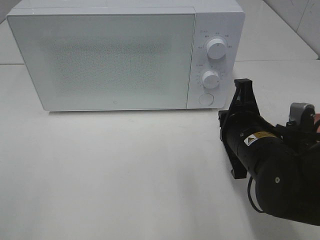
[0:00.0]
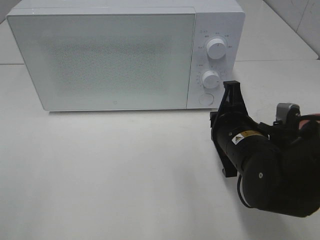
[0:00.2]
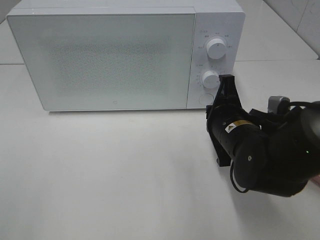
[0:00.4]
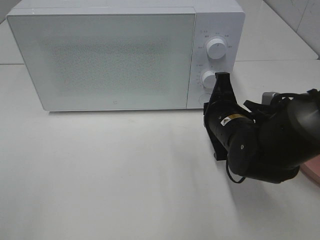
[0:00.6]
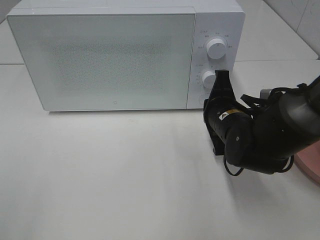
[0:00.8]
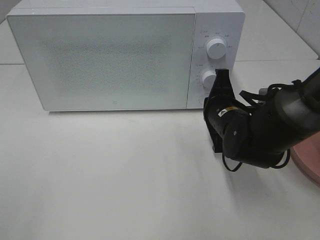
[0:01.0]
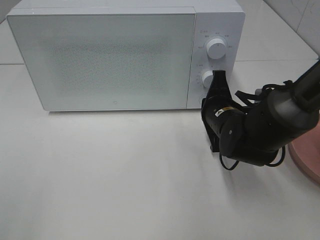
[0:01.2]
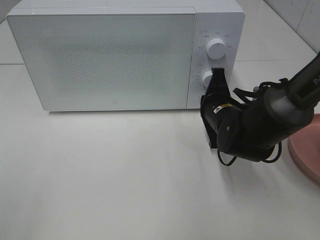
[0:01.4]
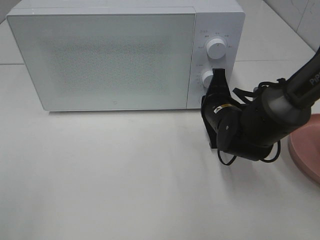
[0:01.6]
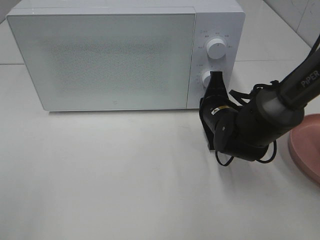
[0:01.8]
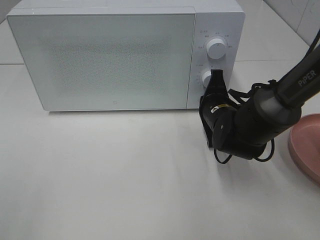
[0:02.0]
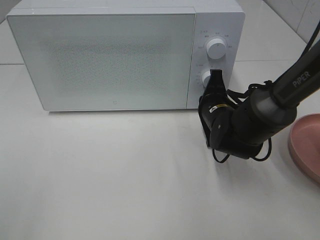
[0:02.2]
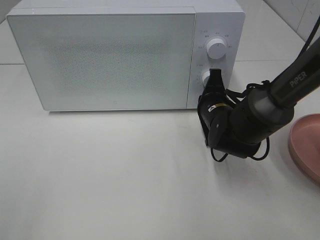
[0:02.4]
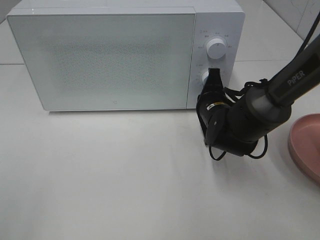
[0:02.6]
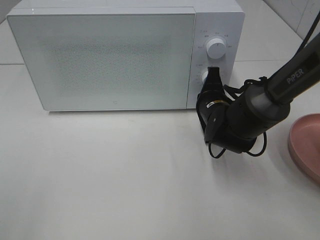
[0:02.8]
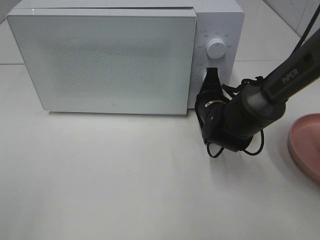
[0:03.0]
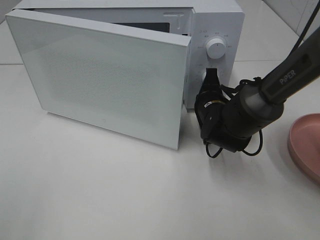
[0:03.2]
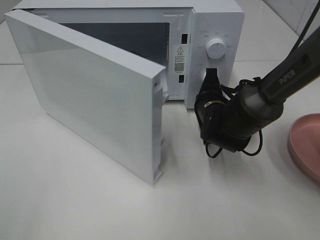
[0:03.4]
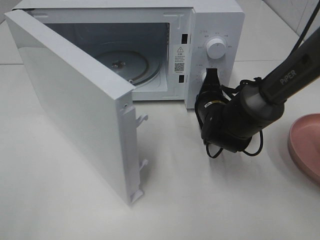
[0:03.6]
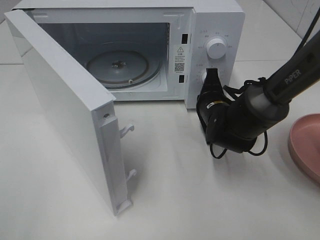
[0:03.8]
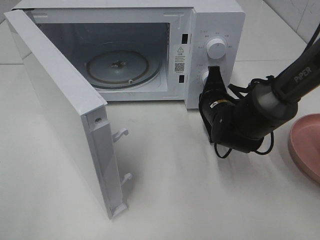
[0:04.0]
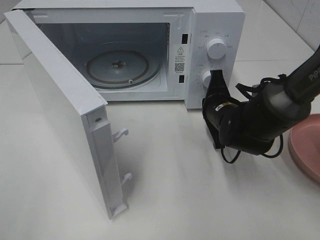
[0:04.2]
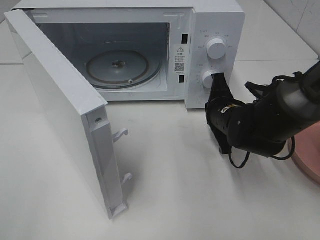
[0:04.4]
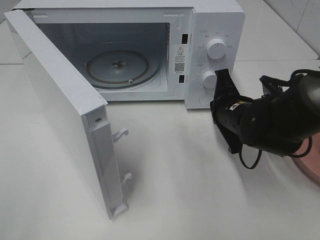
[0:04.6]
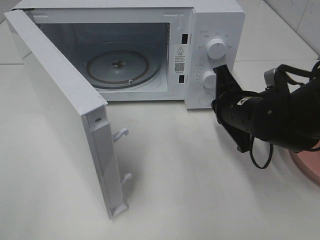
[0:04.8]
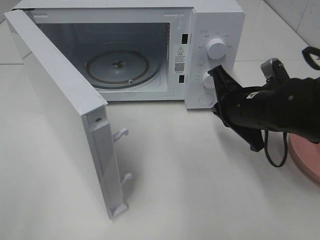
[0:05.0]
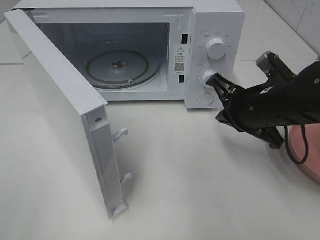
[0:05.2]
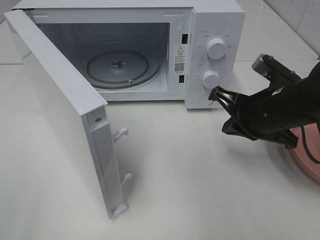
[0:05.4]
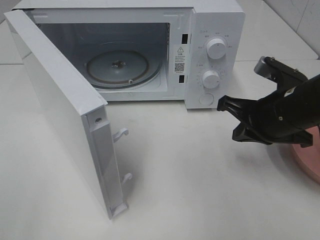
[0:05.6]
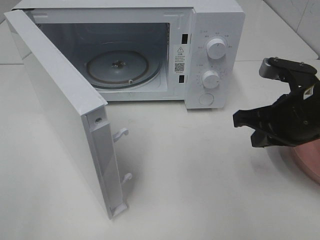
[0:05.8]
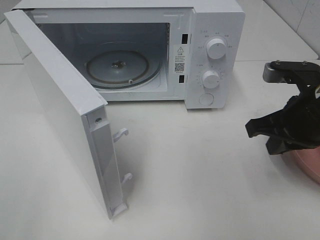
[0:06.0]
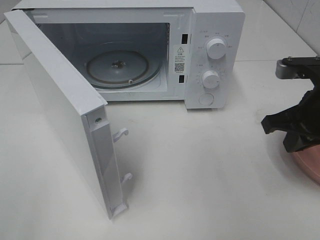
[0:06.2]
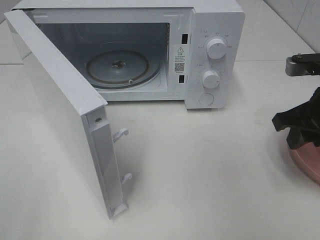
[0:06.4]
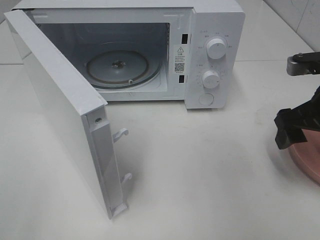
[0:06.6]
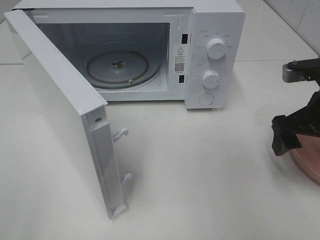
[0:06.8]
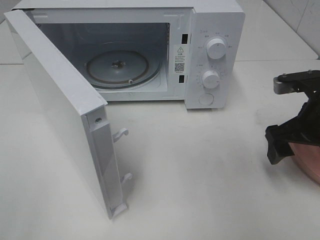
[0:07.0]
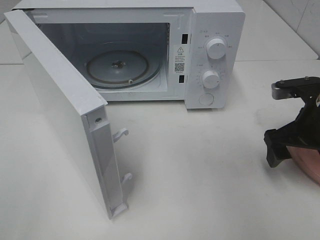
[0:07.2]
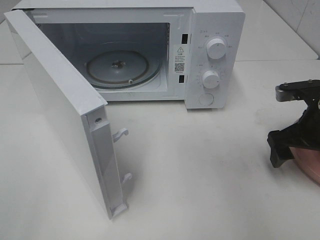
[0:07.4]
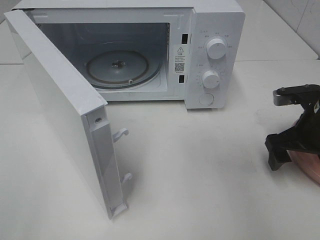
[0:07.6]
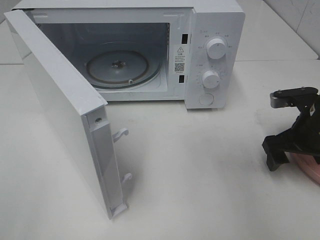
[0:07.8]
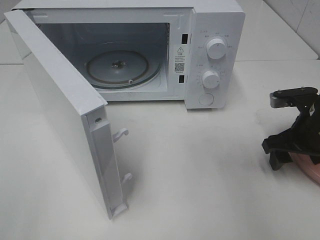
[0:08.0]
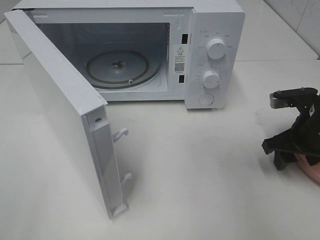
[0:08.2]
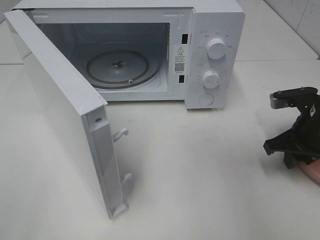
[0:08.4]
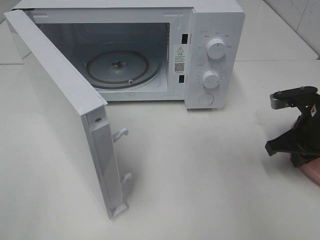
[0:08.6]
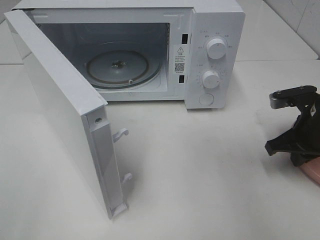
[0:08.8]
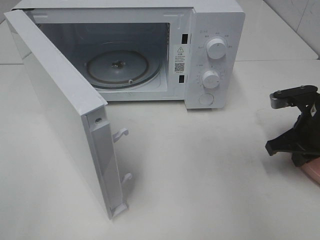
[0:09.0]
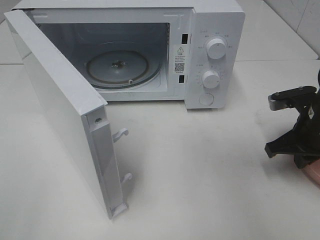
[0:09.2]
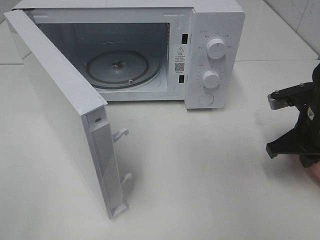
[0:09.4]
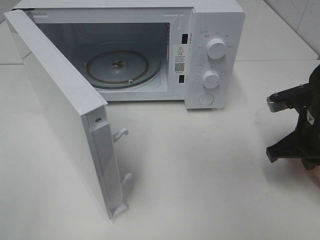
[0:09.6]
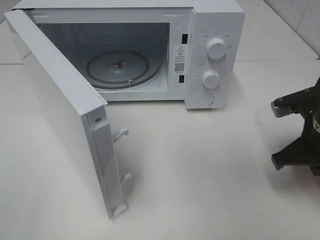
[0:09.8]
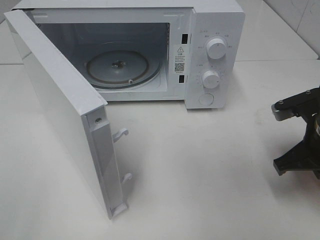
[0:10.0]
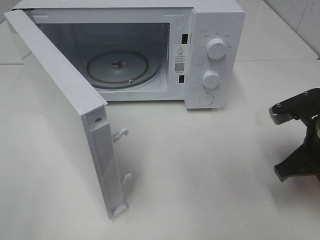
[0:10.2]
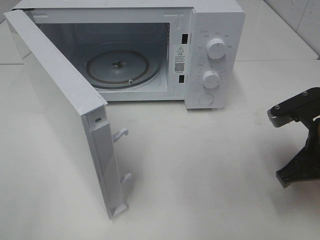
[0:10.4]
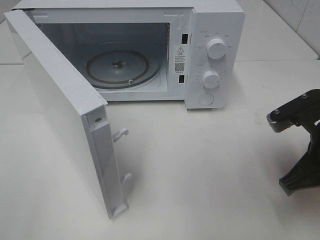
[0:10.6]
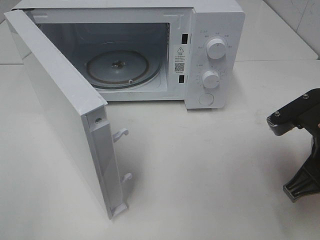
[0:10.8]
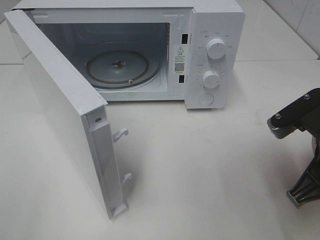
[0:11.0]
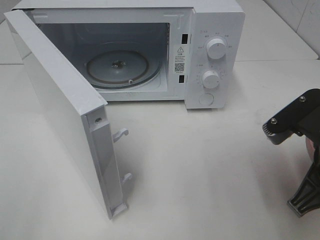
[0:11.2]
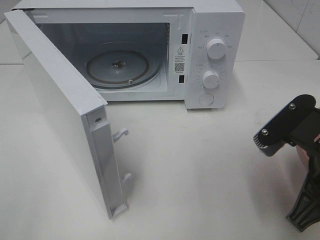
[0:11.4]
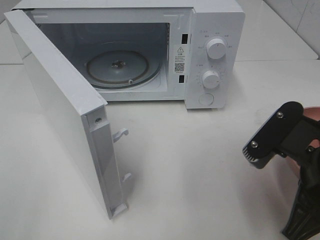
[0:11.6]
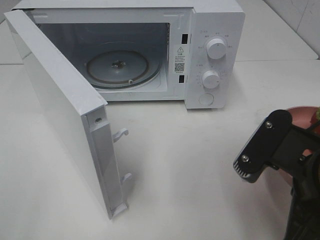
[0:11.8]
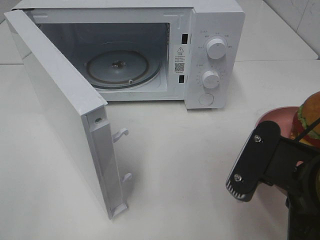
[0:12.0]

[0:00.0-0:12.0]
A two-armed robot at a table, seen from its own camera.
Task of the whole recording: Heat the burger.
Step, 0:00.0 to 0:04.2: Right hand: press the switch.
Step, 0:04.4 to 0:08.8: Right hand: grab the plate with the hamburger.
0:00.0 to 0:01.6: The right gripper goes about 10 cm forward.
0:01.6 to 0:03.0: The grippers stay close to where they were, moving slightly.
0:04.4 to 0:06.0: The right gripper goes some 15 cm upward, backward and to the right.
0:06.0 to 0:07.6: The right gripper travels downward by some 5 cm, and opens up.
0:07.6 to 0:09.0: The right gripper closes up.
0:09.0 to 0:10.4: The right gripper moves backward, about 10 cm.
0:10.4 to 0:12.0: The right gripper travels backward and to the left by about 10 cm.

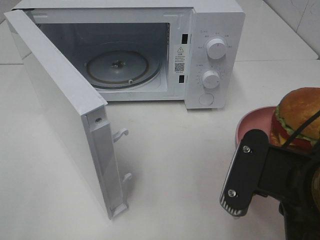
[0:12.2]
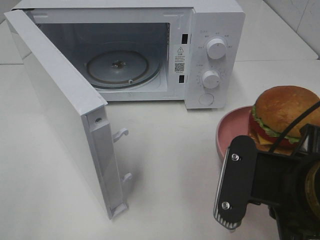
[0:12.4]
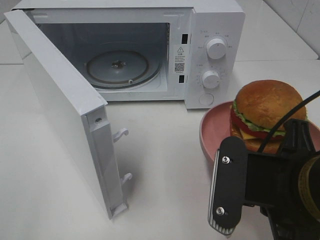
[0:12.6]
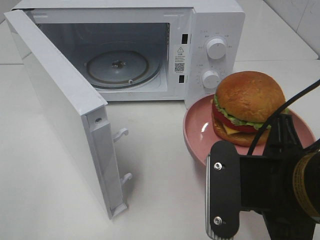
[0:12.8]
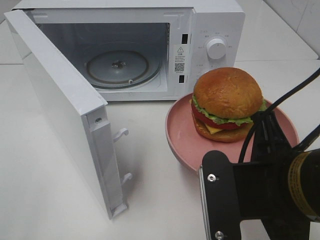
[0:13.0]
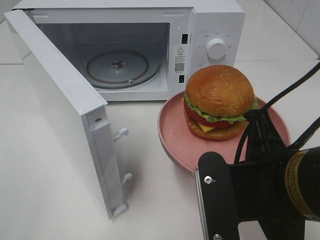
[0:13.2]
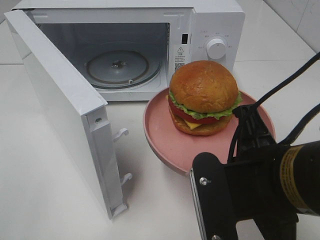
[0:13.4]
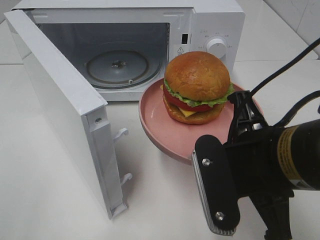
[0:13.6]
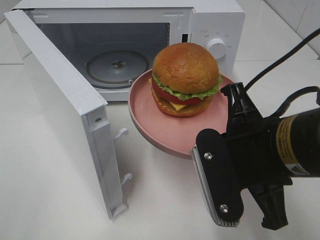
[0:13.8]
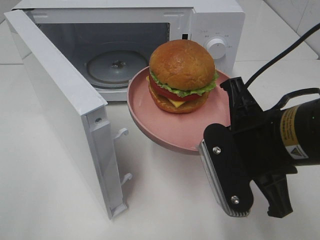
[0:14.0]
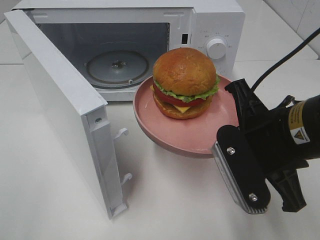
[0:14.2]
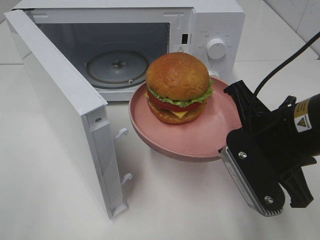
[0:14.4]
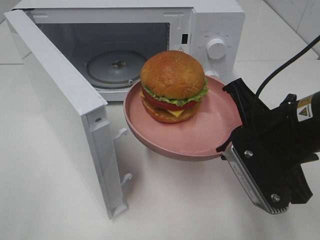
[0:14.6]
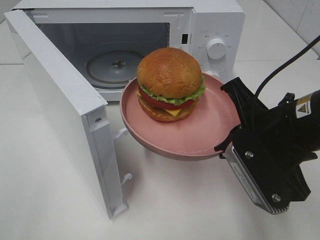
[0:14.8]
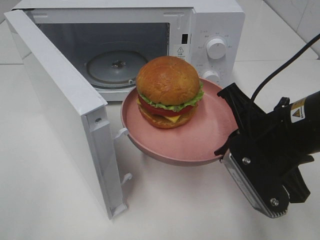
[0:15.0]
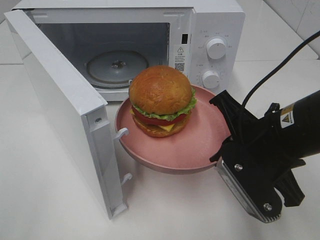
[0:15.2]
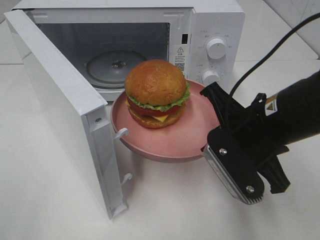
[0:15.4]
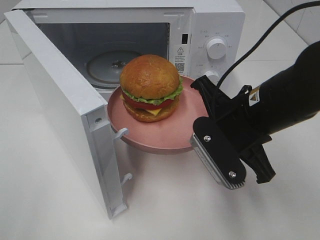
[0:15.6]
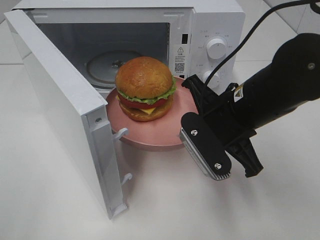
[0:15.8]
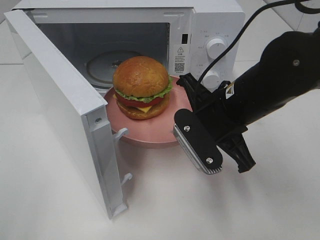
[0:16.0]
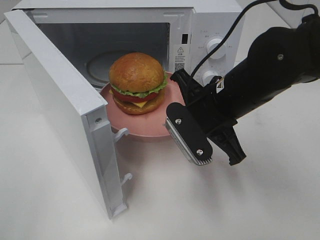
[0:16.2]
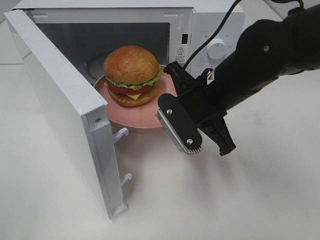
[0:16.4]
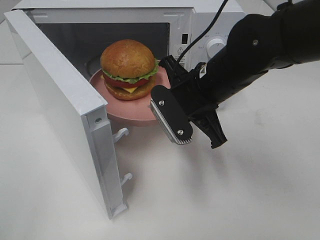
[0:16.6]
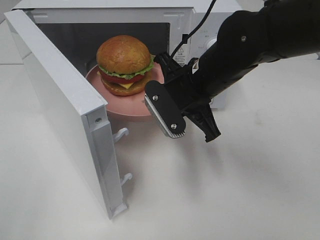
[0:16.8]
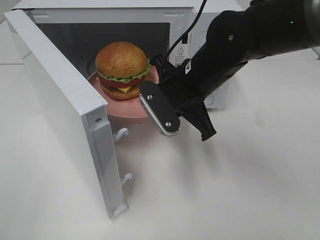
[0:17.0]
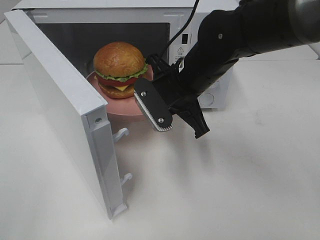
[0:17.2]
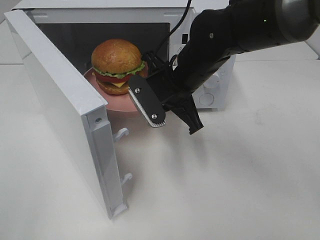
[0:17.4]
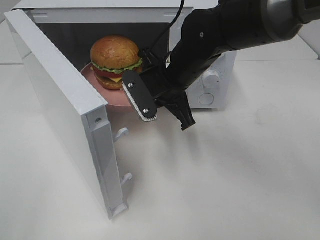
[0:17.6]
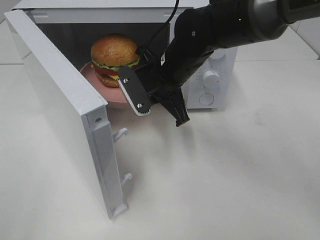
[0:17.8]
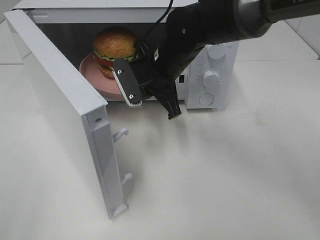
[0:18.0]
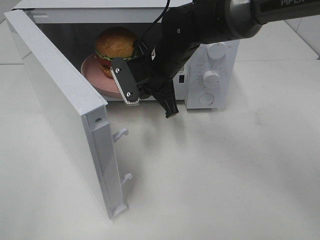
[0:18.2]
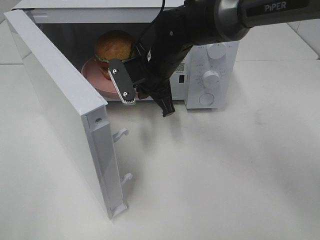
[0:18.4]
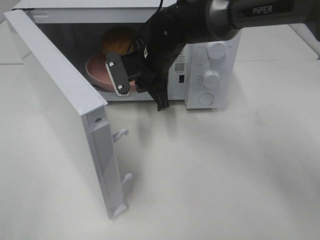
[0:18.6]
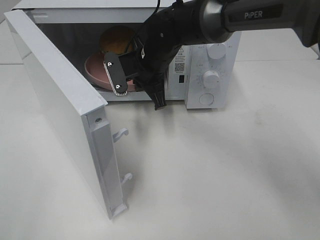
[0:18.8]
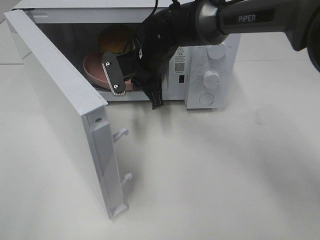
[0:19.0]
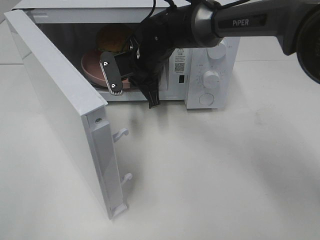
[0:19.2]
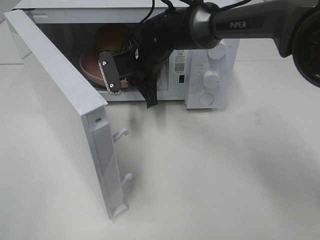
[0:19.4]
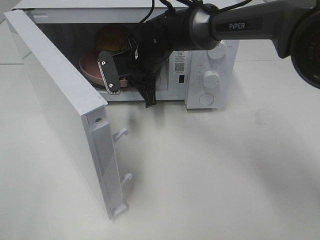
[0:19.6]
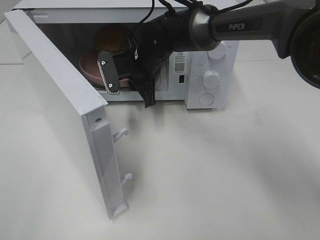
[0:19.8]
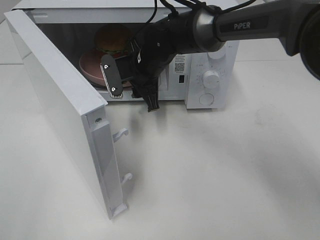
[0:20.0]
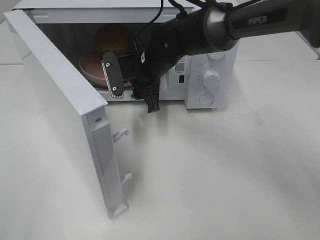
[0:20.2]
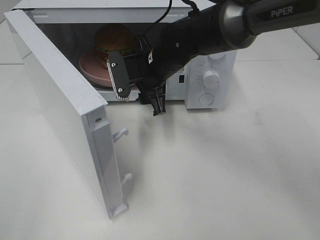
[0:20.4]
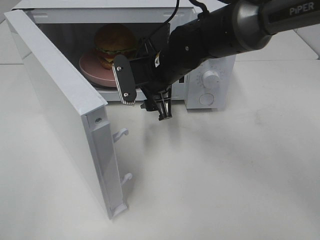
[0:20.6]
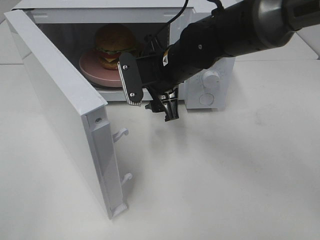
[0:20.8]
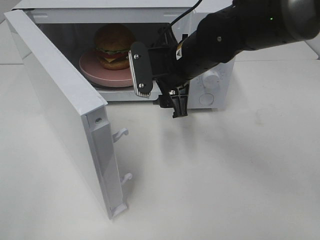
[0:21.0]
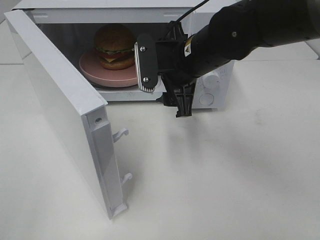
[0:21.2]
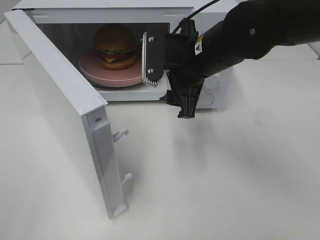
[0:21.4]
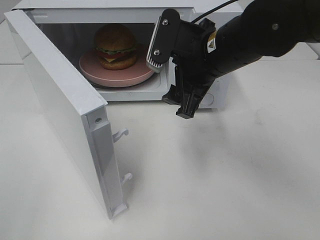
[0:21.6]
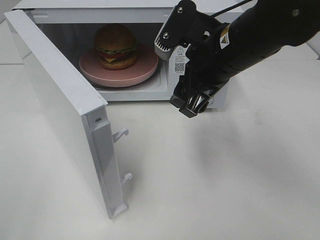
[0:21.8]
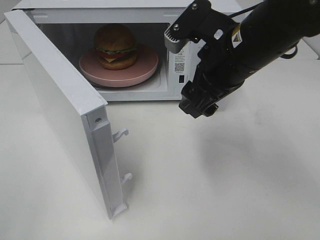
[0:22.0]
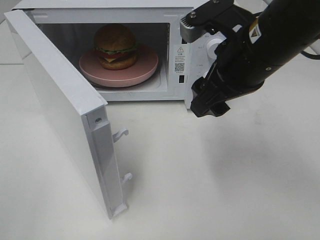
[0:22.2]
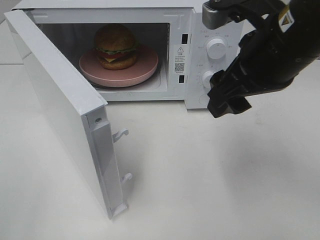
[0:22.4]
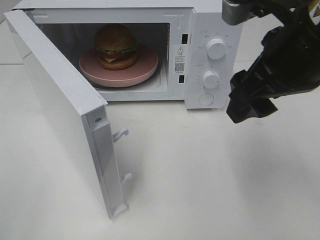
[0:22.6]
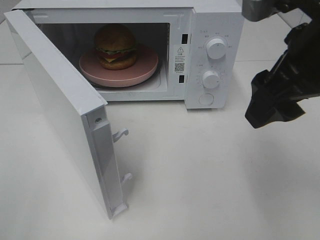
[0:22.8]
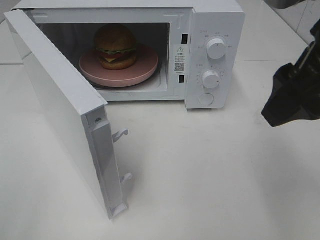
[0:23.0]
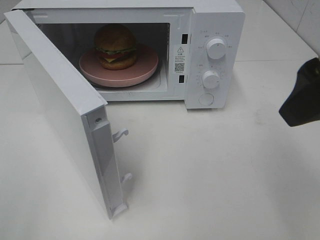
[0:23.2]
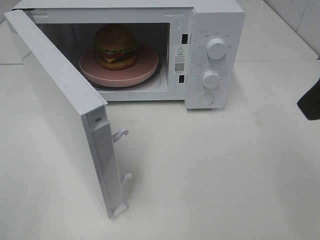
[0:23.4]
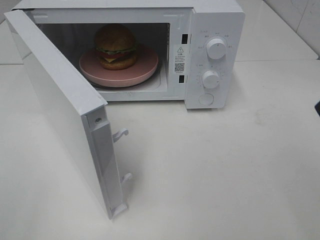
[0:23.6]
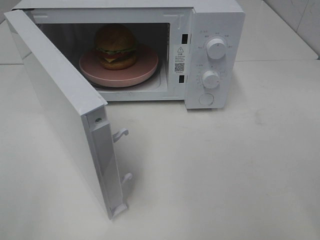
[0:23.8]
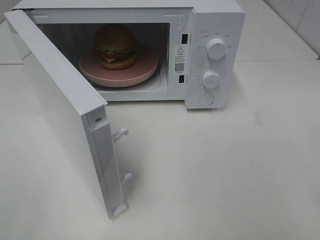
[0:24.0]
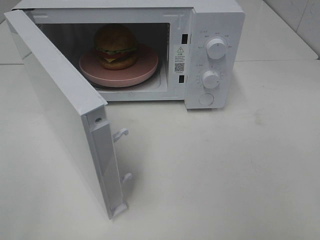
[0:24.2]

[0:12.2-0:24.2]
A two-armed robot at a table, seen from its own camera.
Task of the whole recording: Heat the burger.
Step, 0:12.2 to 0:19.6: Right hand: place the plate in the microwave.
0:12.2 to 0:13.8: The right gripper moves some 5 cm.
0:13.8 to 0:15.2: The right gripper ends up roughly 5 cm from where it was.
0:15.2 to 0:16.6: The right gripper travels forward and to the left by about 10 cm.
0:16.6 to 0:18.2: The right gripper moves forward and to the left, roughly 10 cm.
0:18.2 to 0:19.8: The right gripper shifts by approximately 5 cm, and opens up.
0:19.8 to 0:21.2: The right gripper goes some 15 cm backward, to the right and upward, and opens.
0:21.2 to 0:22.6: The right gripper moves backward, upward and to the right, about 15 cm.
0:22.6 to 0:24.2: The right gripper moves backward and to the right, some 20 cm.
